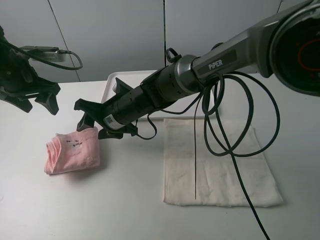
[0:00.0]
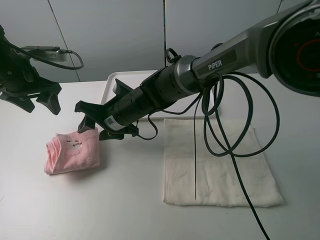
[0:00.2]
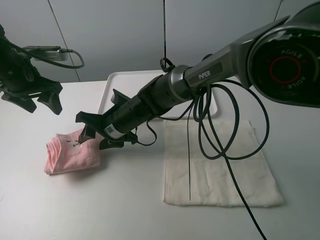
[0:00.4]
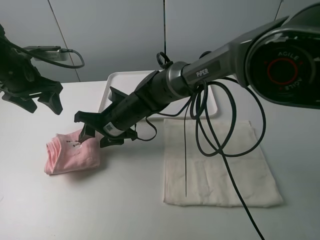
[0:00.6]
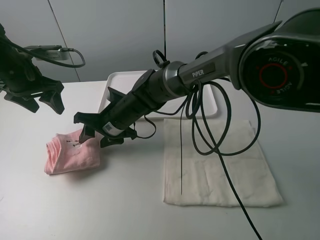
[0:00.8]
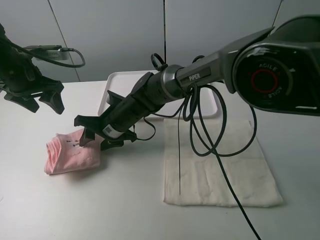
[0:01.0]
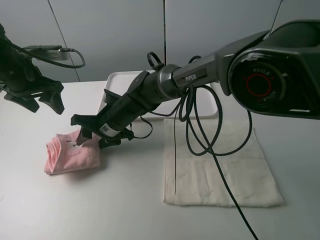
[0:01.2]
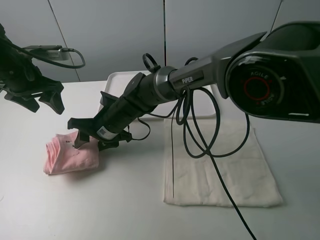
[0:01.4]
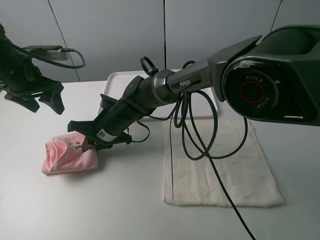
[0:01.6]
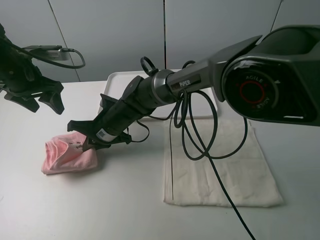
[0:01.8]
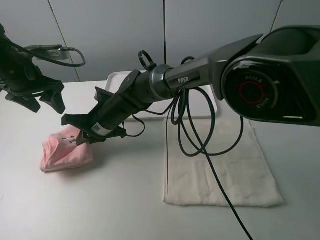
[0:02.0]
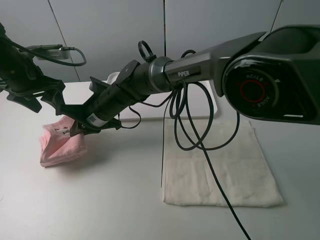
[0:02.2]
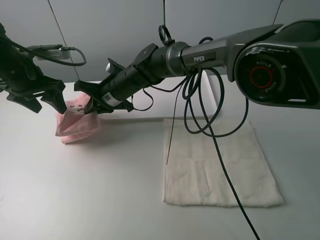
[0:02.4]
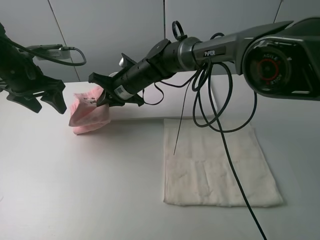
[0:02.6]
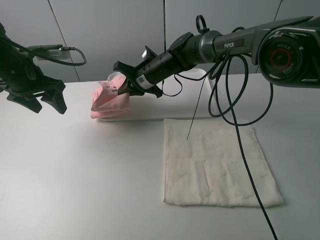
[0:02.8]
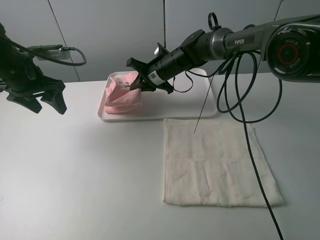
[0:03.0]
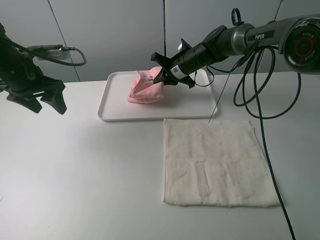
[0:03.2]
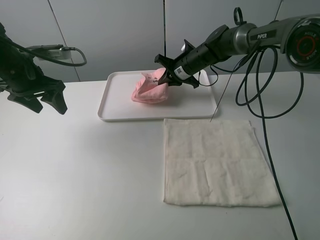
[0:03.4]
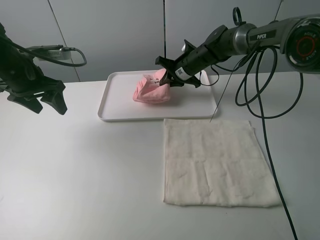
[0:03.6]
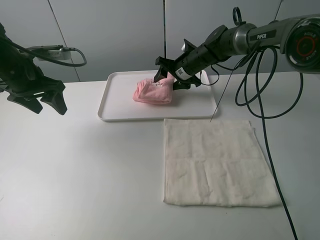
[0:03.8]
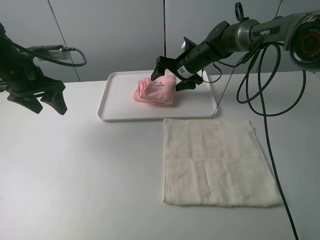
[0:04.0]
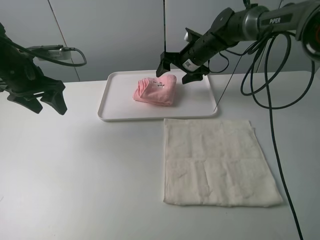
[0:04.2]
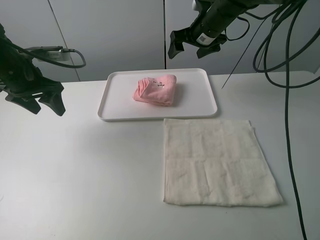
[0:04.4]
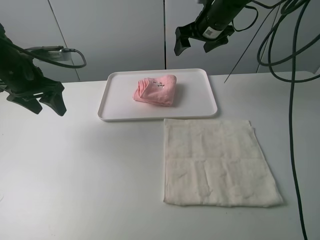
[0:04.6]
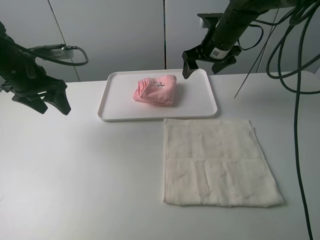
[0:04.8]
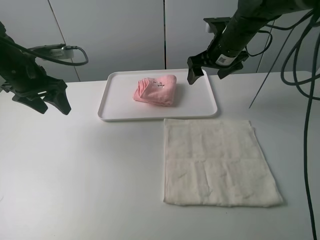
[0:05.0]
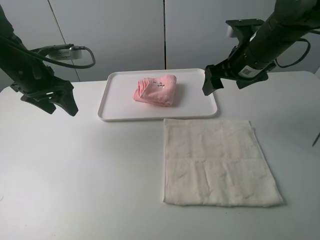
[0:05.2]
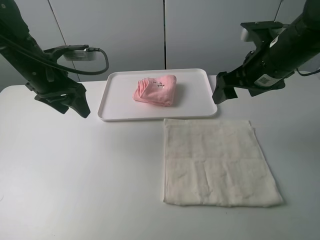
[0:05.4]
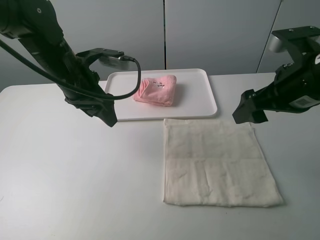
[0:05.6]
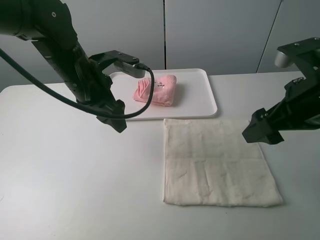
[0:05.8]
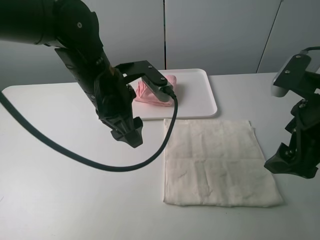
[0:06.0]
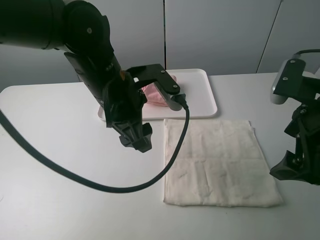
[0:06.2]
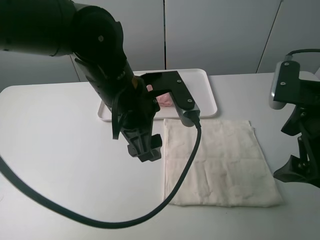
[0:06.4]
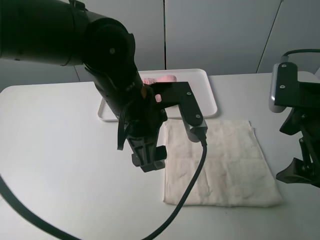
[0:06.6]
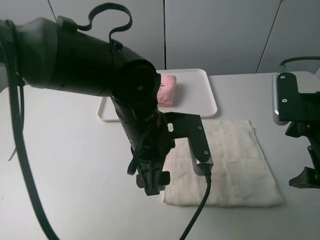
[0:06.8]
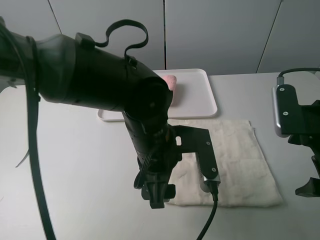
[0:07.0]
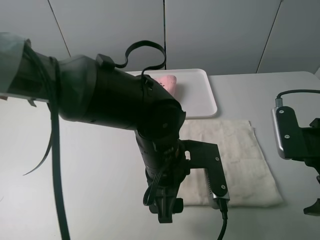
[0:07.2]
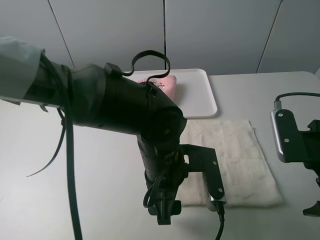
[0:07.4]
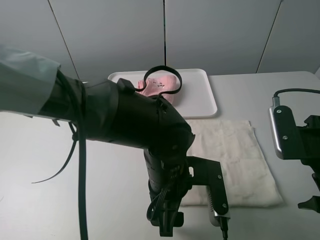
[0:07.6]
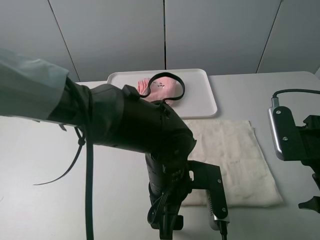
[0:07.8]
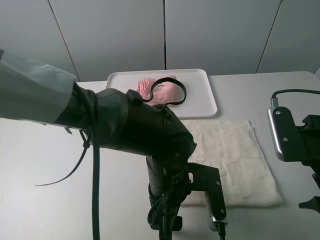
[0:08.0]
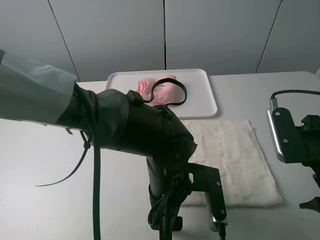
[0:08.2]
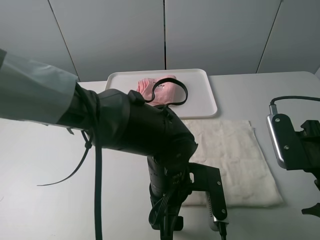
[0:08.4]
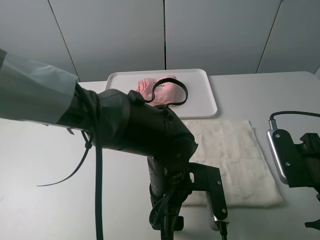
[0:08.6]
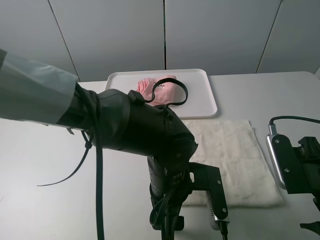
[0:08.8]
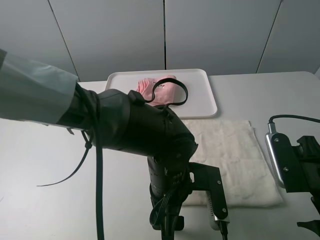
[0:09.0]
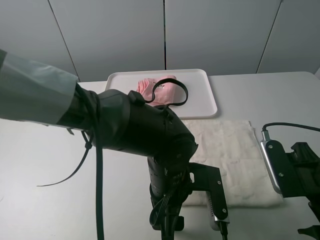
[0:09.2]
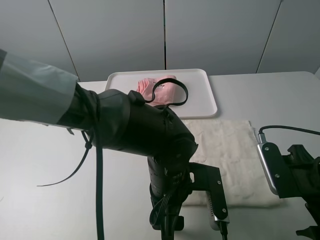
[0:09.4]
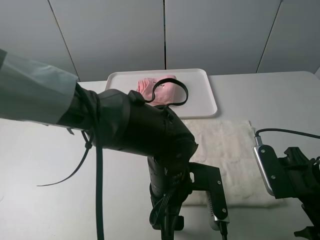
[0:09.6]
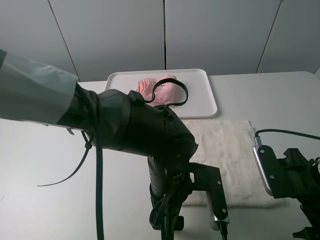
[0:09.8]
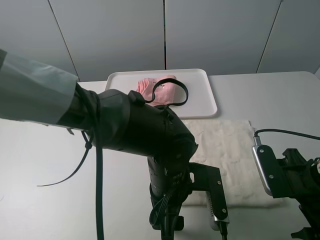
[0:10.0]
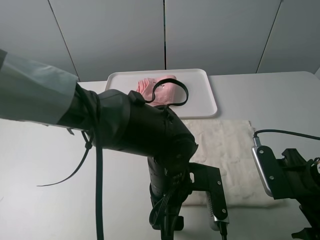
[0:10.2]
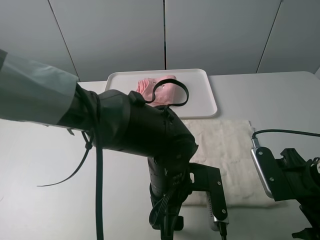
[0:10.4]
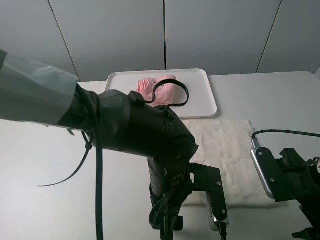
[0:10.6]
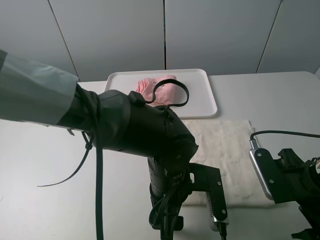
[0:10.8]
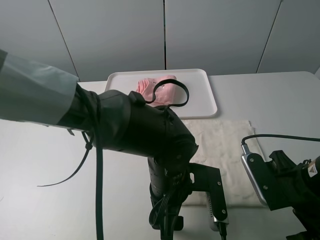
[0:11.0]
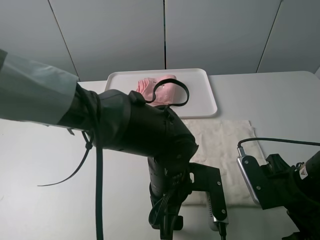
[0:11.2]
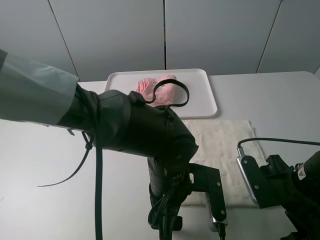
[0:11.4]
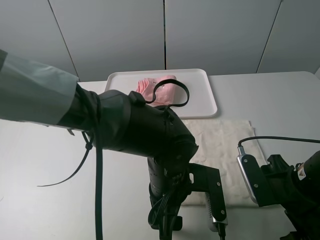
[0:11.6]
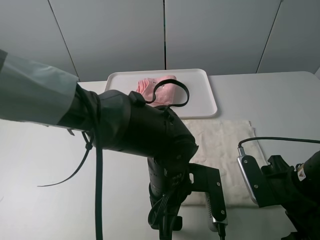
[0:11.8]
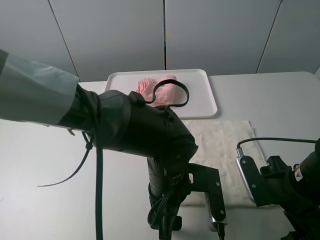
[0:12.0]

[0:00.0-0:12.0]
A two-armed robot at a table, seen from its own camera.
Task of the whole recording: fold one of the towels by two grippers and place it on the tray,then fold another towel by two grippers and place it on the folded towel.
Step, 0.0 to 1.8 s: Grasp the pink towel with the right gripper.
Step, 2.0 to 4.0 s: Move the pink towel to the plate with the right gripper.
0.0 to 1.6 s: The right gripper closes up.
1.6 to 3.0 s: The right gripper travels forward and to the right by some 20 cm.
3.0 to 4.4 s: The right gripper is displaced upward and to the right by about 15 cm, and opens.
4.4 to 6.0 s: The left gripper is displaced to the right by roughly 20 cm. Meanwhile the right gripper is displaced backward by roughly 30 cm.
6.0 to 7.6 s: The right gripper shifts by approximately 5 cm. Meanwhile the left gripper goes about 15 cm downward, to the right and backward.
7.6 to 10.4 s: The grippers stay close to where they were, moving slightly.
10.4 to 12.0 s: There are only small adjustments of the grippers.

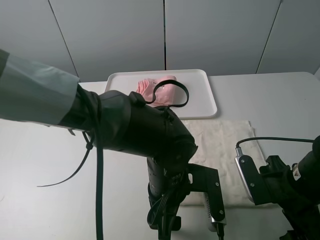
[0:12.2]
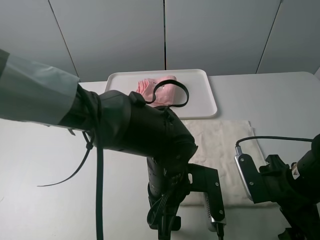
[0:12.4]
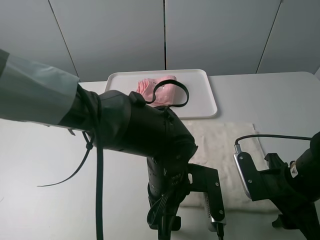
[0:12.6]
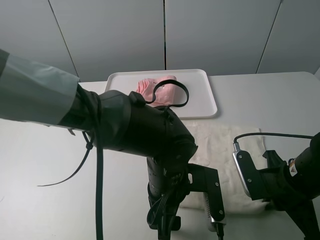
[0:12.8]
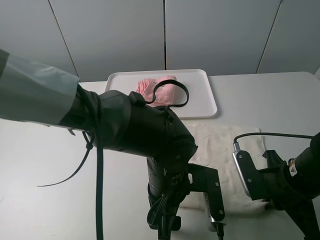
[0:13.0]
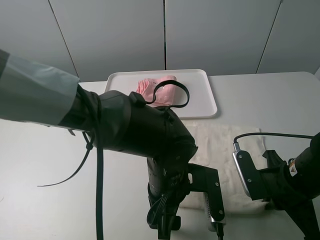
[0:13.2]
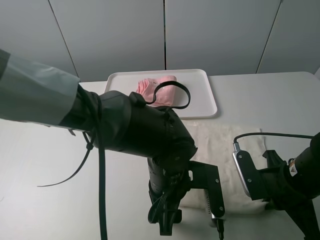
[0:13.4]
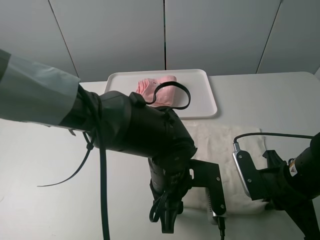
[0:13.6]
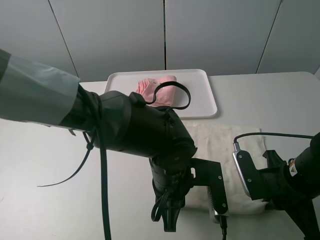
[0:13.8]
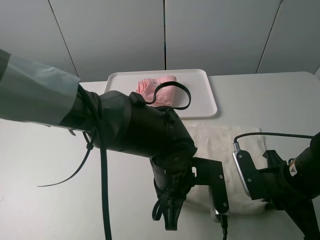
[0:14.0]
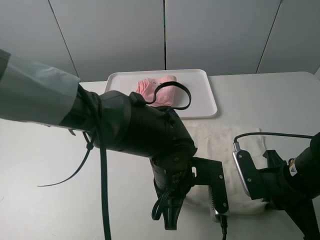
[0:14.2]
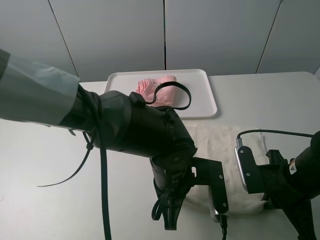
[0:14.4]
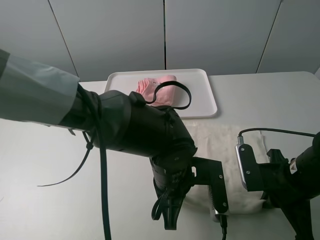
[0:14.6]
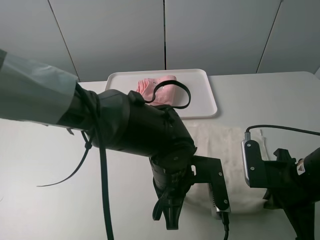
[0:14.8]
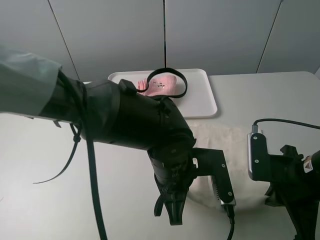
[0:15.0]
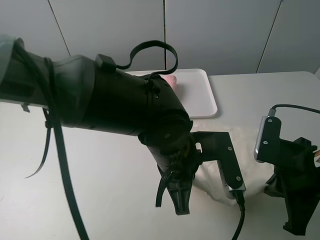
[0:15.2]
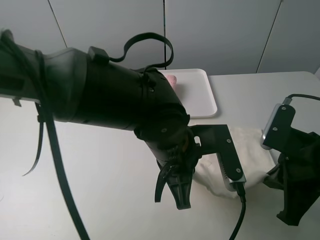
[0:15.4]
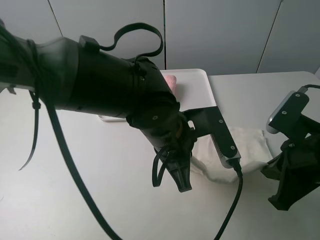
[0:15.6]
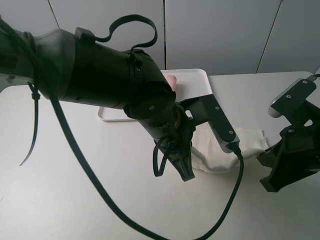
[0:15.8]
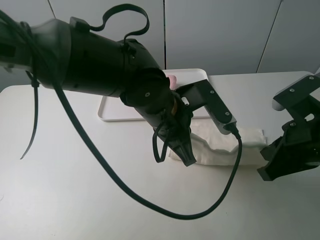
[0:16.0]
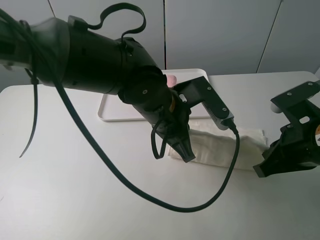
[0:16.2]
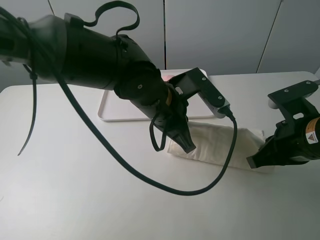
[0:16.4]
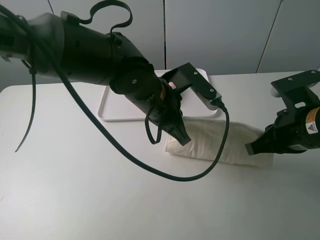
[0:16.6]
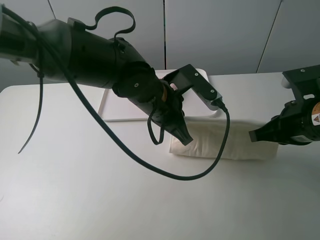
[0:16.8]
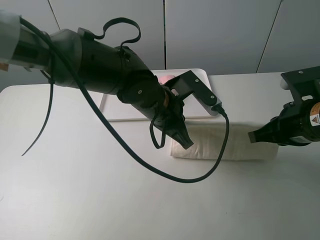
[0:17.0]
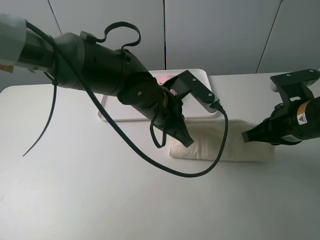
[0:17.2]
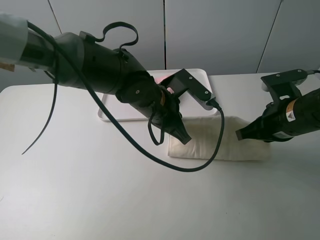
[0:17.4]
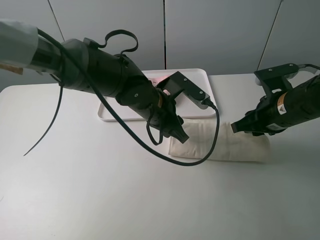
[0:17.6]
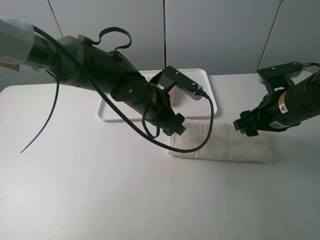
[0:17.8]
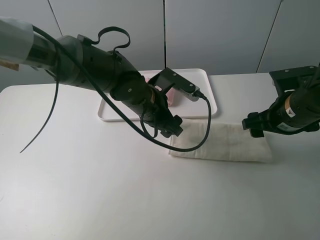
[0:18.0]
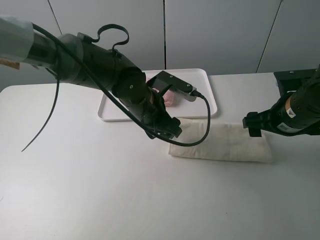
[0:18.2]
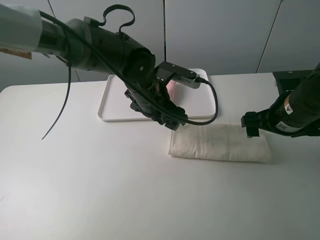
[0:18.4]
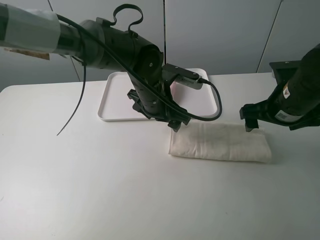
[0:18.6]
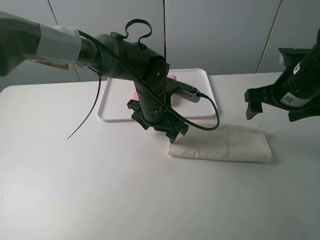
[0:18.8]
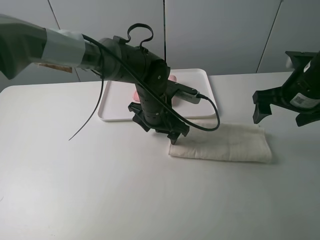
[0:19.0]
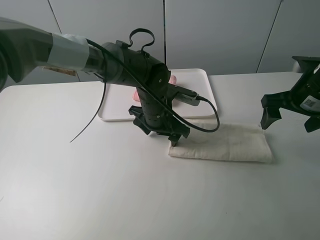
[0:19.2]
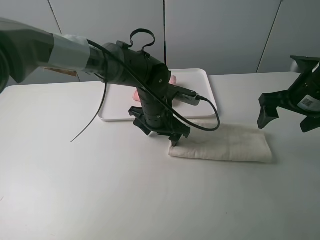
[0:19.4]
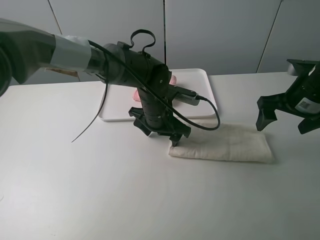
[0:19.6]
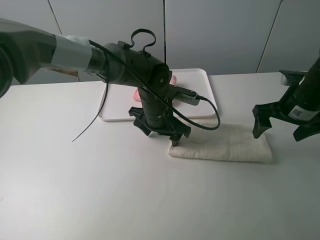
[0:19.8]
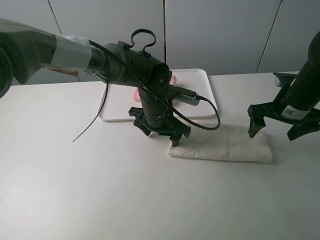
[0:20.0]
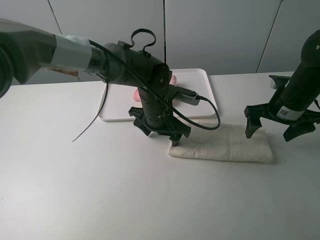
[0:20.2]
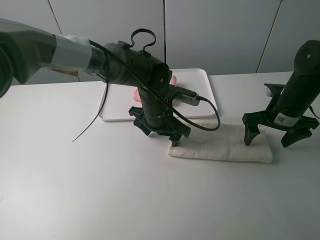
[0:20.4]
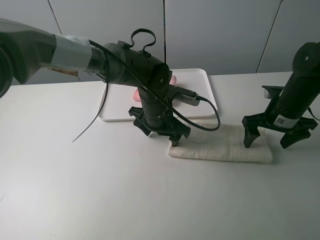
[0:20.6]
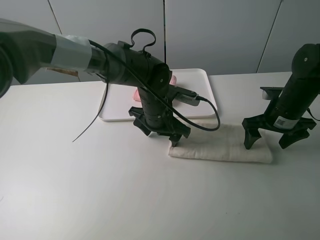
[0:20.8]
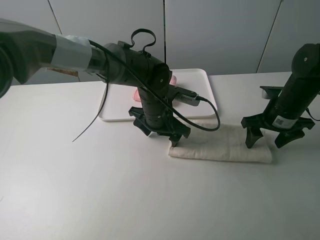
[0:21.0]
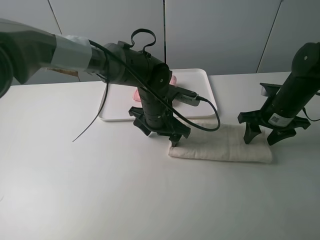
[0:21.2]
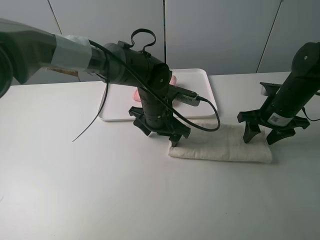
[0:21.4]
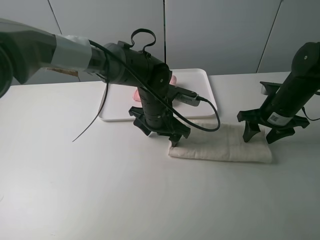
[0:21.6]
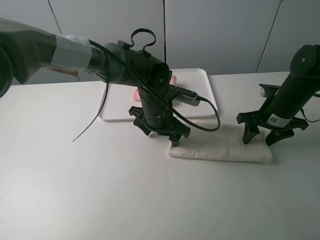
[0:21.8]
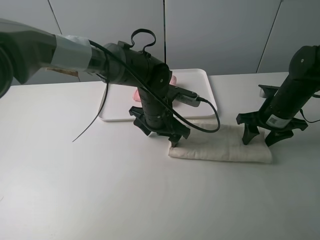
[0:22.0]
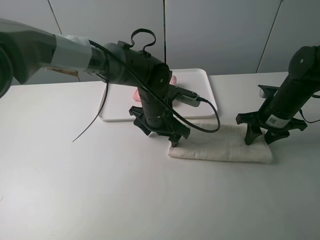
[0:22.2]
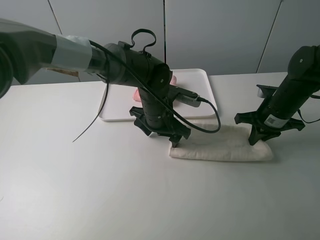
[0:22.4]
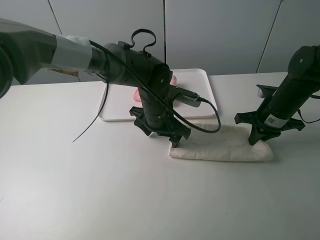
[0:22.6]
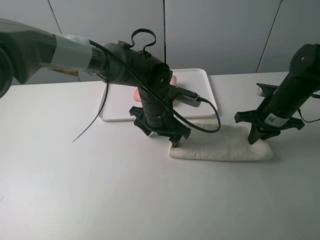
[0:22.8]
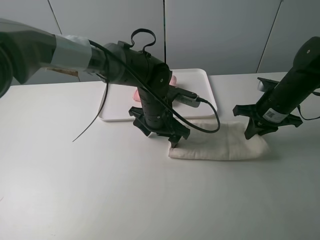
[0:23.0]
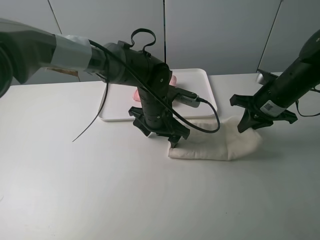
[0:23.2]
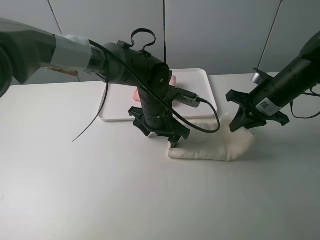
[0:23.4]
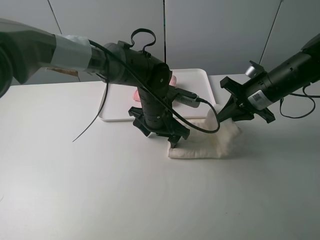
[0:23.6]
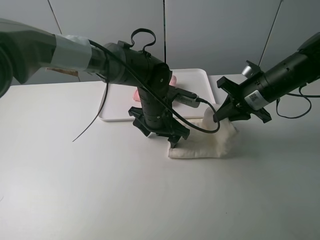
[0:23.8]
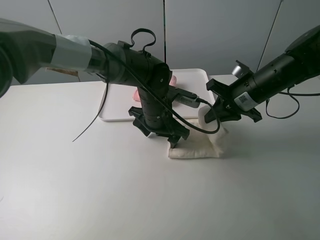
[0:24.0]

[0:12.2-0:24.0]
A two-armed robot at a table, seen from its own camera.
Task of the whole recording: fold one of the towels by two grippers and place it on the tray,then fold another towel by two grippers and place it on the folded towel.
Step, 14.2 to 17.8 s: Fold the white towel upwards with the left gripper.
Step, 18.0 to 19.8 s: Press the white towel with the left gripper.
Step, 20.0 to 22.6 s: Grasp the white towel with the right gripper.
12.2 to 13.6 s: The right gripper closes. The left gripper closes its fingers.
13.6 to 15.2 s: Both grippers move upward, approximately 5 cm. The left gripper closes up.
15.2 to 16.6 s: The left gripper goes approximately 10 cm forward. The right gripper moves forward, roughly 5 cm.
16.6 to 18.2 s: The right gripper is displaced forward by approximately 5 cm, and opens its fingers, while the left gripper changes place by approximately 5 cm, and opens.
18.2 to 19.6 s: The left gripper ends up some 5 cm from where it was; the right gripper ends up roughly 5 cm from where it was.
19.6 to 21.0 s: The right gripper shifts approximately 5 cm downward.
21.0 to 22.6 s: The right gripper closes.
22.6 to 24.0 s: The right gripper goes some 10 cm to the left and upward.
